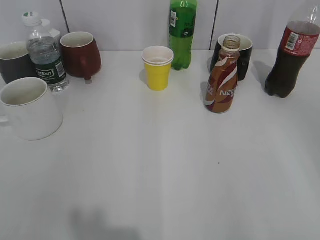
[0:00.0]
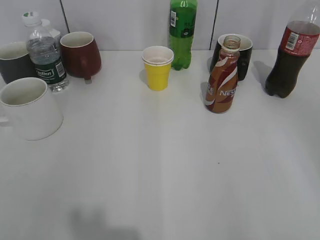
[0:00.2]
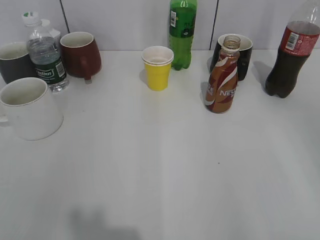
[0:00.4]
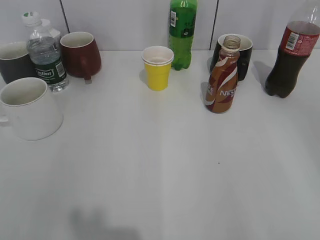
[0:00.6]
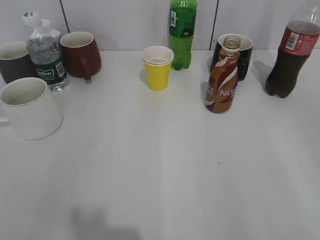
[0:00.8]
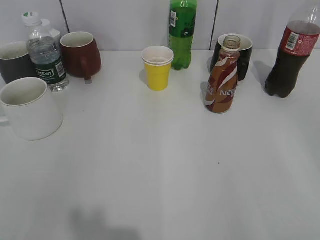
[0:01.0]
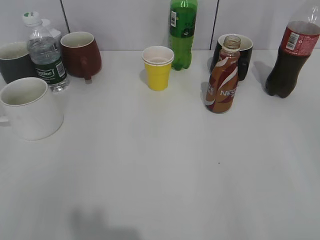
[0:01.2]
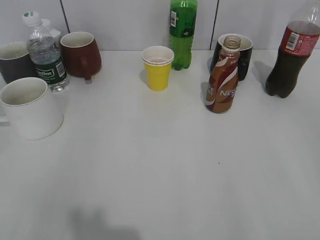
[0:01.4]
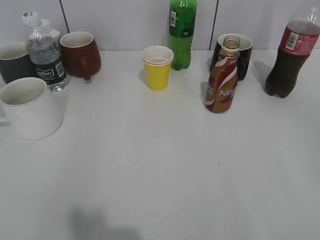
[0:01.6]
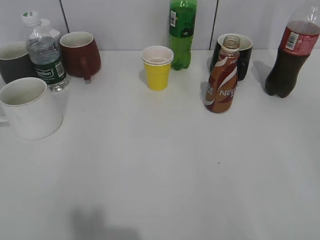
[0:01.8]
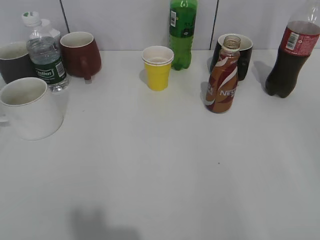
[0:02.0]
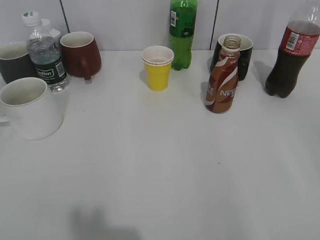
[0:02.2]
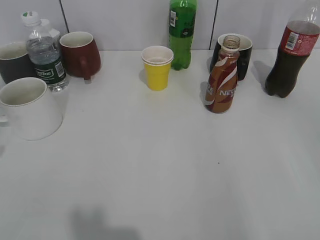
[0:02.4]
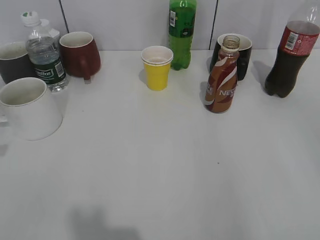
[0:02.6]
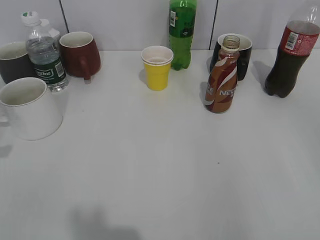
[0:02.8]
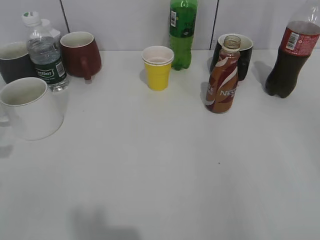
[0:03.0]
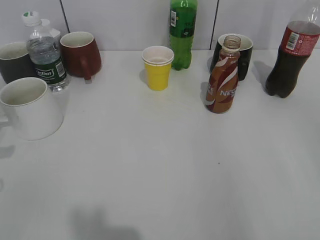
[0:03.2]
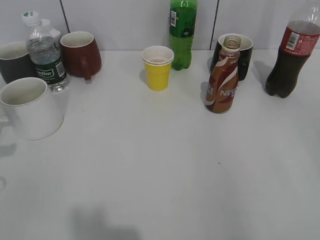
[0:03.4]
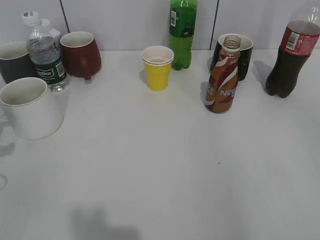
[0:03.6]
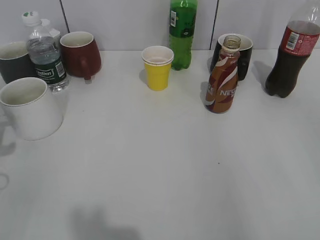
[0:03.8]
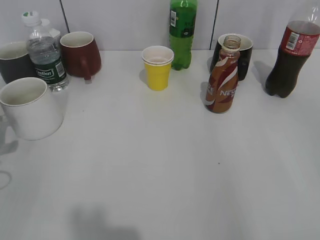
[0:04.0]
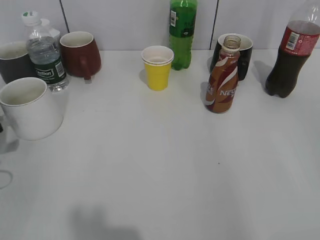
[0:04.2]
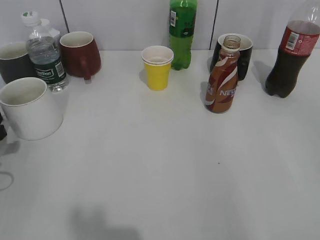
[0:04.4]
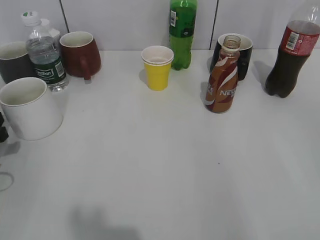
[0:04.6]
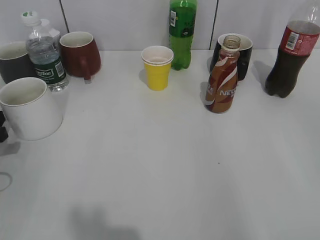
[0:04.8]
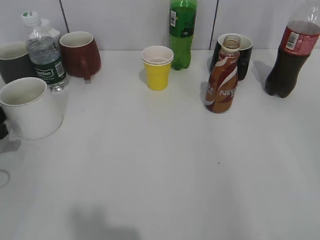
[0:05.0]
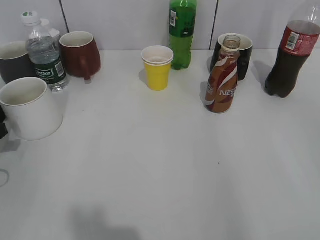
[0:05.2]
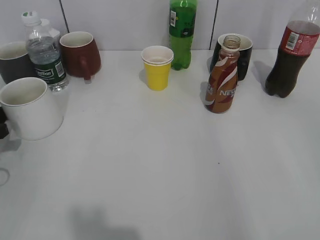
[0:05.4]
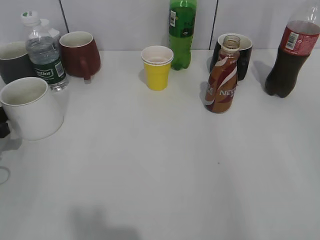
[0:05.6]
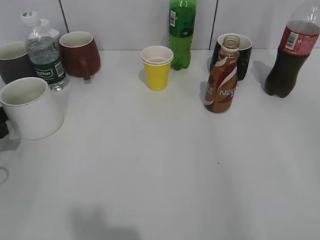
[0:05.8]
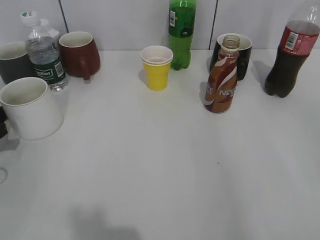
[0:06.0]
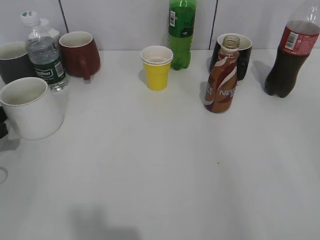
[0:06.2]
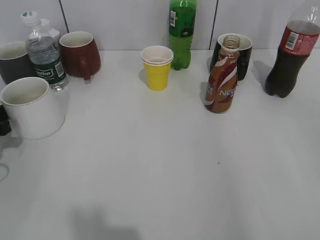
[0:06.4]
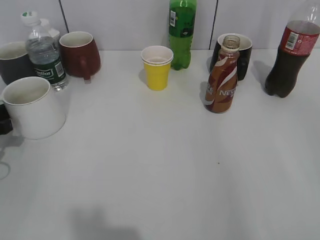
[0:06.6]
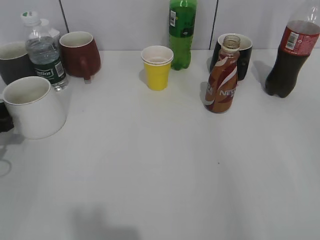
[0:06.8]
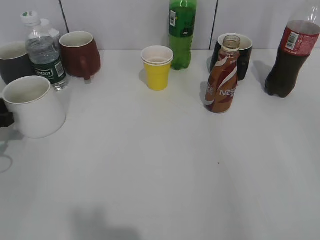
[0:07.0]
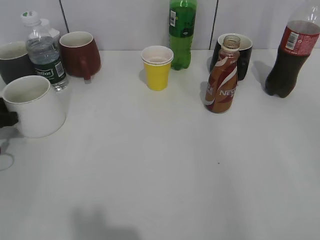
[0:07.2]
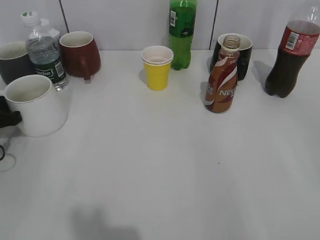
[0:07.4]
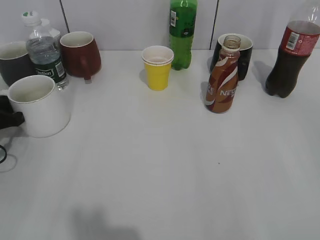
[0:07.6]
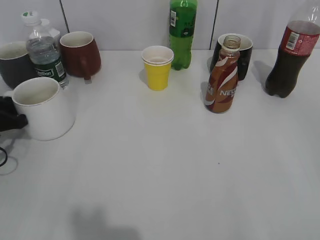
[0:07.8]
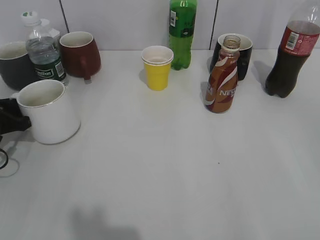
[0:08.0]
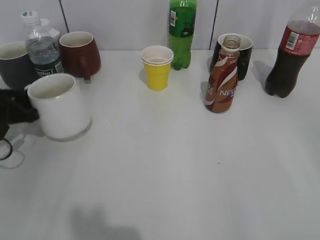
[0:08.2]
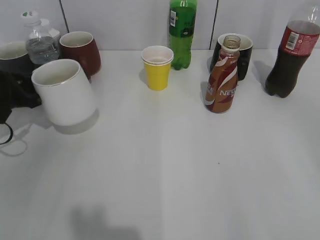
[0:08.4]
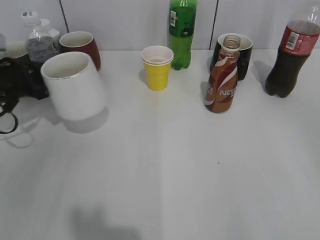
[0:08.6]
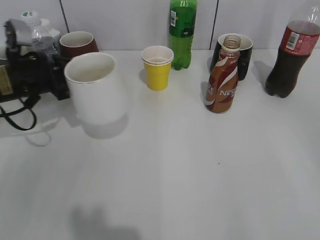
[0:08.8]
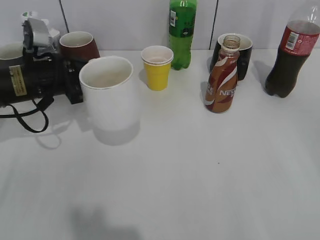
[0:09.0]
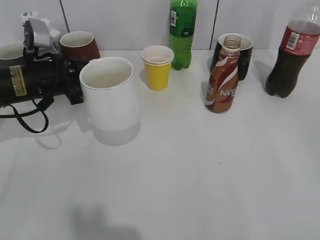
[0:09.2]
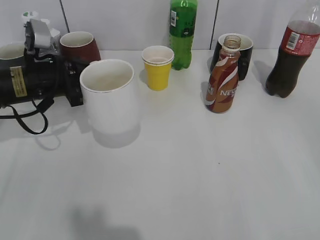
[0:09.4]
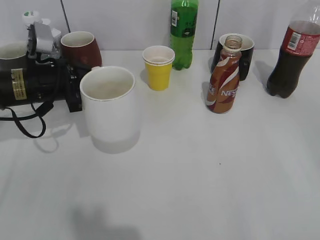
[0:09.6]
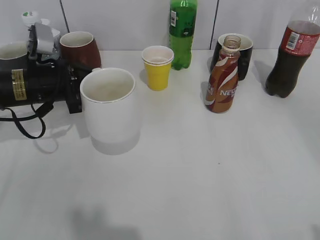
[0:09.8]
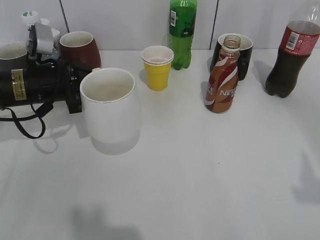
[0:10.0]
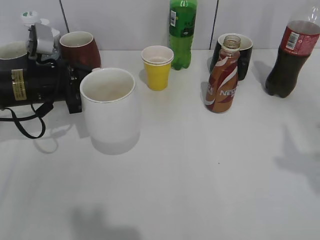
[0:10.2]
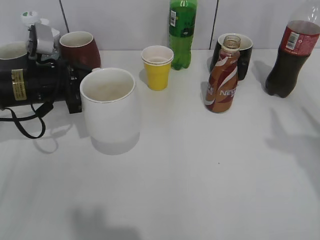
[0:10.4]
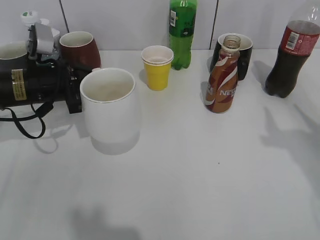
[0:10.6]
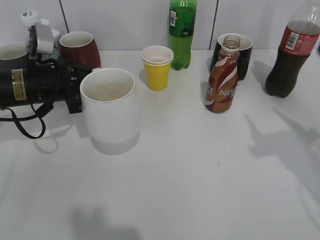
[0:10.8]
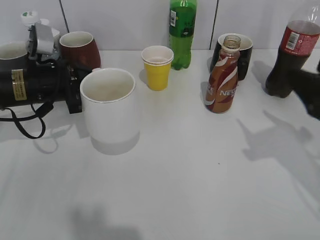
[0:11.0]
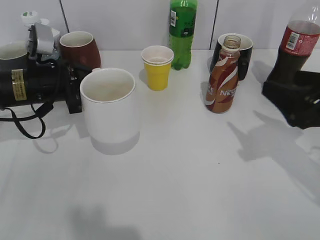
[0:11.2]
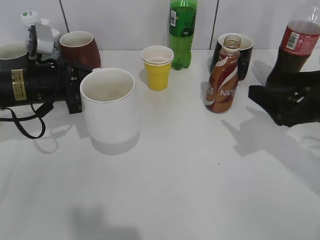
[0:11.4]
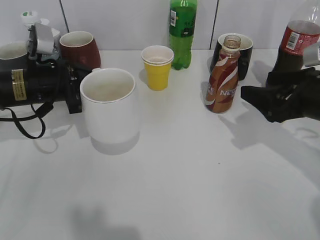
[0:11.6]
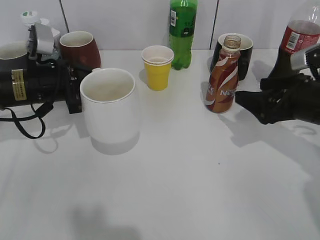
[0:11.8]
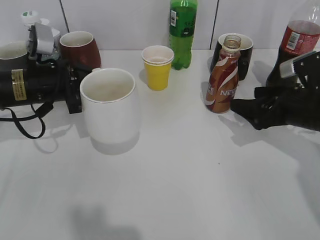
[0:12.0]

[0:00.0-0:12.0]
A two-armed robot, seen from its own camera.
Step, 0:03.6 to 0:07.8: Grasp the white cup with left gripper.
Step, 0:08.2 to 0:10.0: Lift the white cup with left gripper.
0:03.0 to 0:04.4: The left gripper is displaced downward by some 10 cm, and opens its fingers.
0:04.4 to 0:06.0: The grippers make only small movements.
0:06.0 to 0:07.6: The left gripper closes its fingers.
0:07.6 to 0:09.0: The left gripper travels to the right, upward and forward by roughly 15 cm.
0:09.0 to 0:10.4: The right gripper travels forward and upward by about 15 cm.
0:10.4 to 0:12.0: The right gripper travels downward and forward by about 25 cm, and opens up.

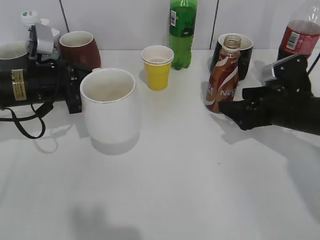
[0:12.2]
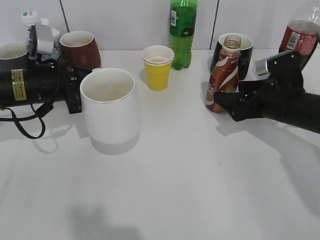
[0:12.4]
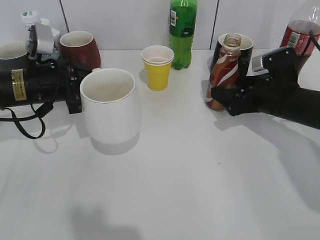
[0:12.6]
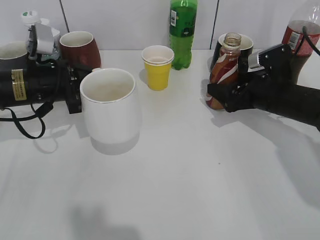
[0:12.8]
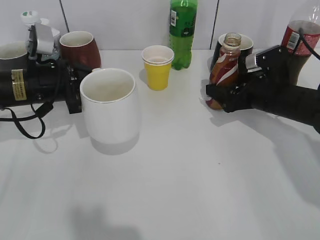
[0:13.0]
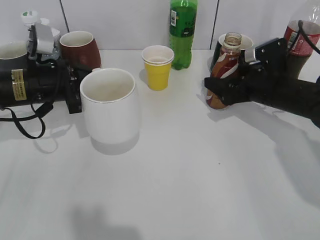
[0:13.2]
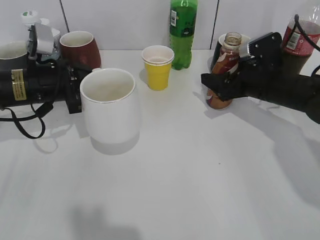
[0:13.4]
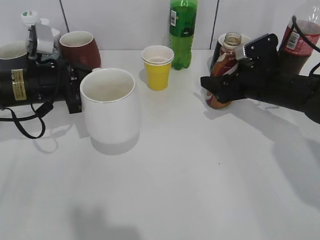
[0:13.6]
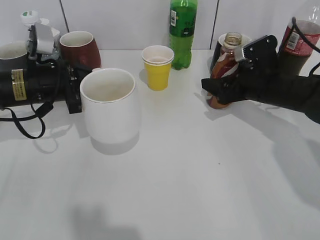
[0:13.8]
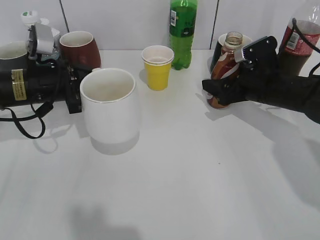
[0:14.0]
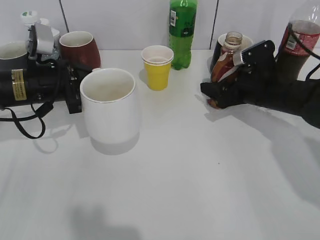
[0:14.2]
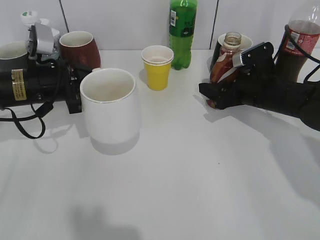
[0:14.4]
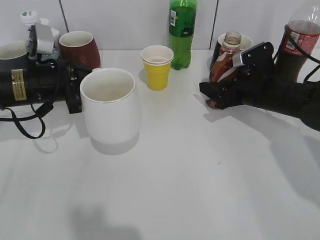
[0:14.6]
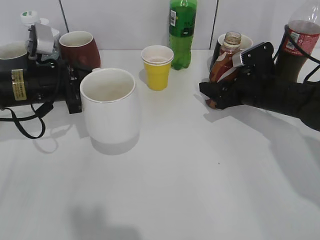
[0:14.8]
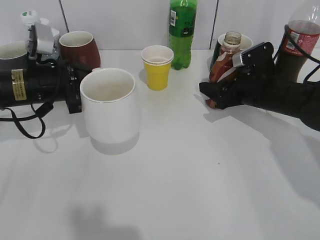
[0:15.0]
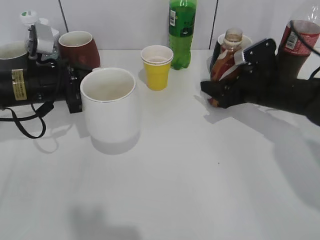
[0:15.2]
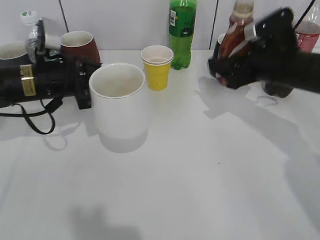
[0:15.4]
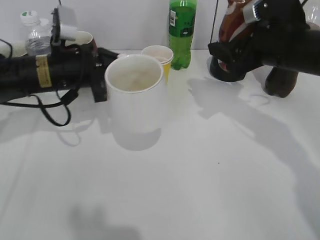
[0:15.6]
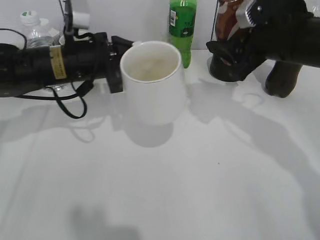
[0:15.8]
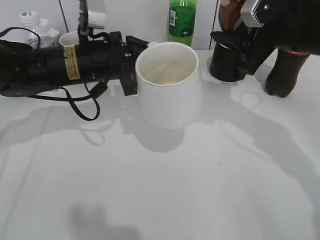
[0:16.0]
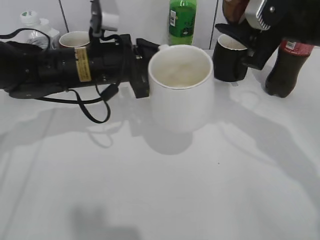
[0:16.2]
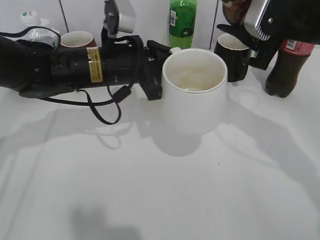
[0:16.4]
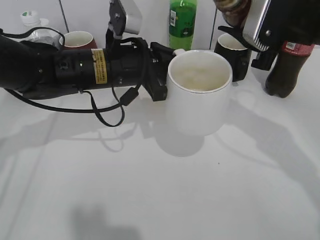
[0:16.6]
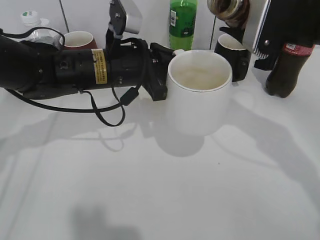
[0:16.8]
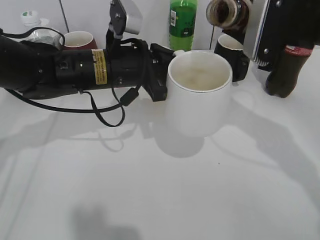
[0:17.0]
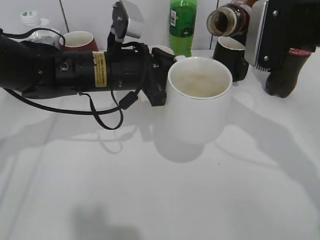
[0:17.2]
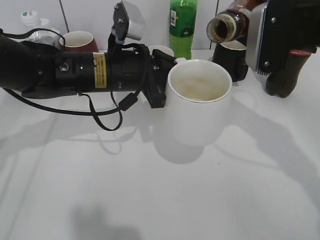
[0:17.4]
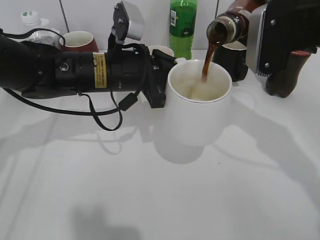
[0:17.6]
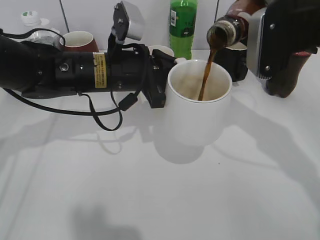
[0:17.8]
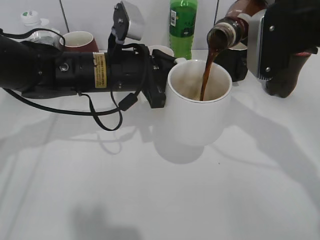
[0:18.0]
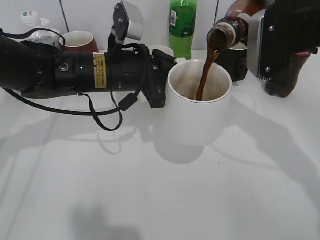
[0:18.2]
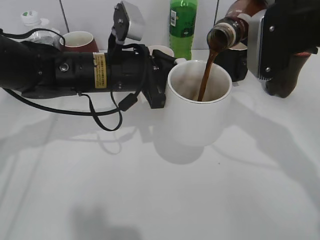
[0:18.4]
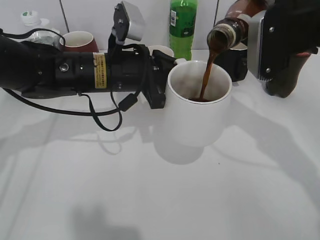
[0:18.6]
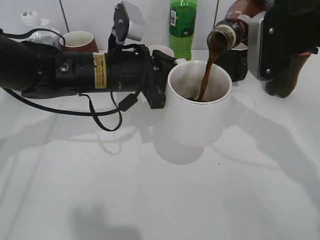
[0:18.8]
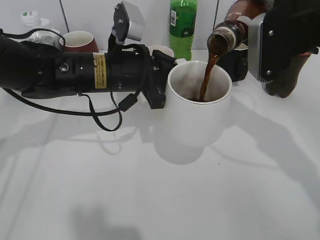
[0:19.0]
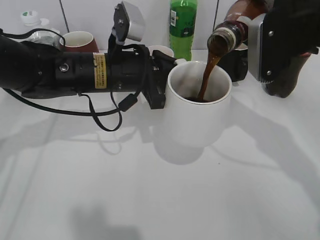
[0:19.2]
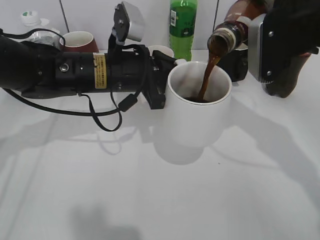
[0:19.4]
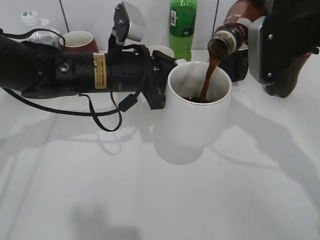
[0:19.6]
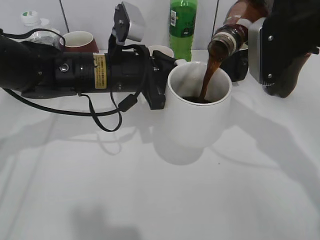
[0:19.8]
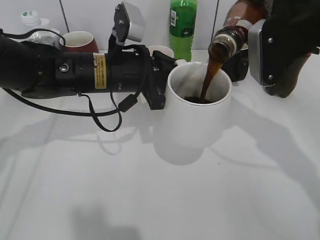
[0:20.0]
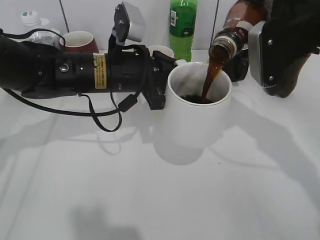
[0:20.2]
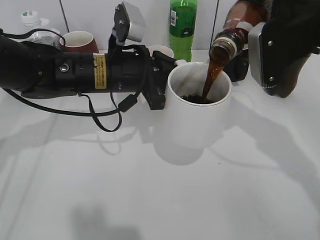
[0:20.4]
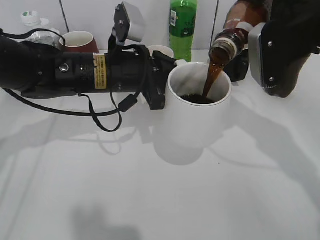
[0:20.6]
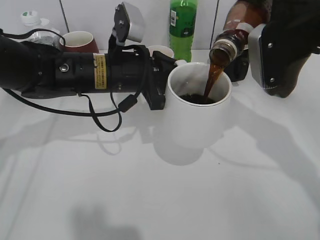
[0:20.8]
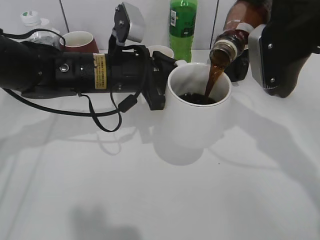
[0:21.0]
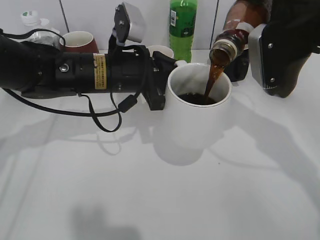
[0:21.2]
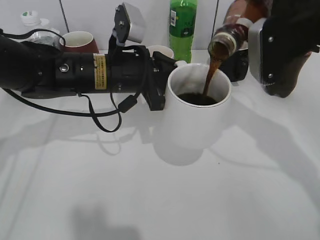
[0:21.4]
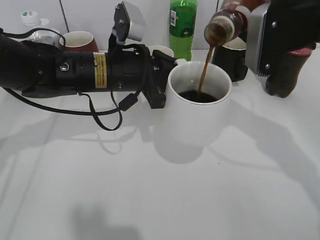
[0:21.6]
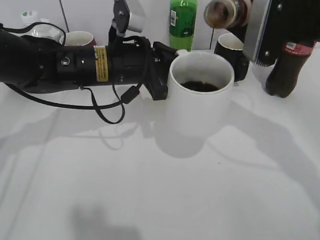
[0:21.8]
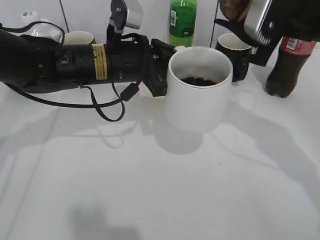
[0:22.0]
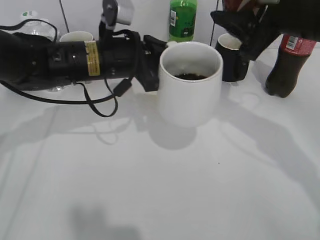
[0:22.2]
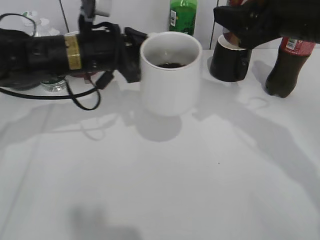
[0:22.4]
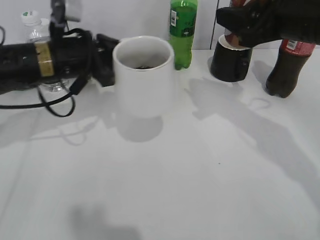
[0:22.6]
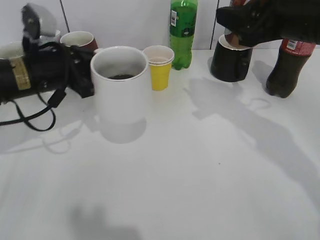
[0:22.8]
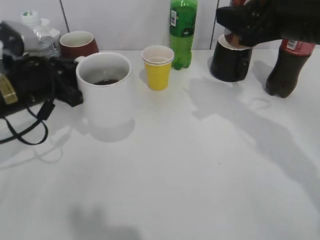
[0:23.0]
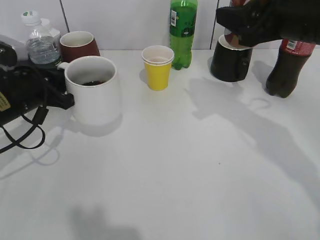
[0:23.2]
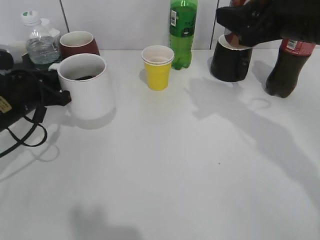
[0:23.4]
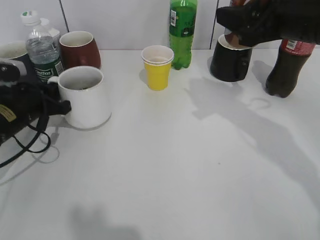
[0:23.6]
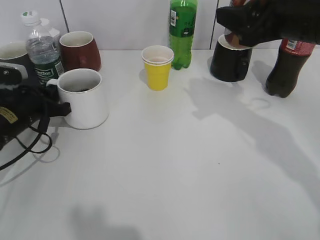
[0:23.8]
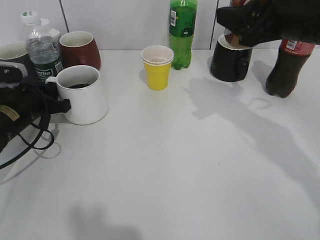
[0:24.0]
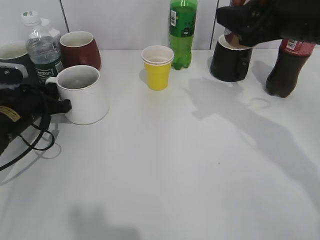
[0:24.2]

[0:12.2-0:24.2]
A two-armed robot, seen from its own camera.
Step, 0:12.2 to 0:15.0: Grasp the bottle with coffee with right gripper.
Step, 0:15.2 to 0:21.8: Pour the coffee from bottle to cup with right gripper.
0:12.2 to 0:13.8: The right gripper travels forward by about 5 cm, and closes.
0:13.8 to 0:15.2: The right gripper closes up.
0:15.2 to 0:16.6: The right gripper shifts about 15 cm upward and backward, while the left gripper is displaced to the right by approximately 15 cm.
0:18.2 to 0:21.2: The grippers stay close to where they were, moving slightly.
0:21.2 to 0:22.6: The left gripper heads to the left, covering some 10 cm.
0:22.6 to 0:24.2: The left gripper moves downward and to the left, approximately 15 cm.
